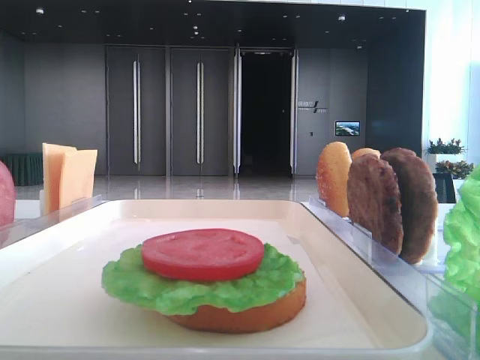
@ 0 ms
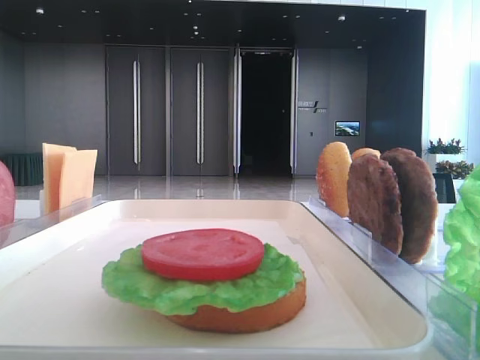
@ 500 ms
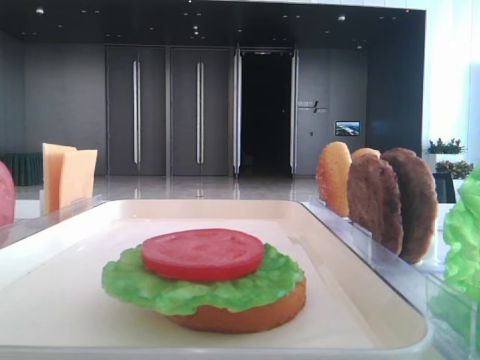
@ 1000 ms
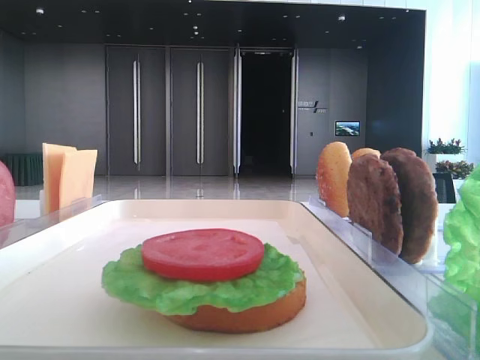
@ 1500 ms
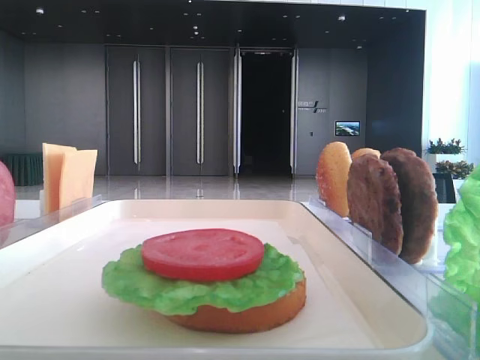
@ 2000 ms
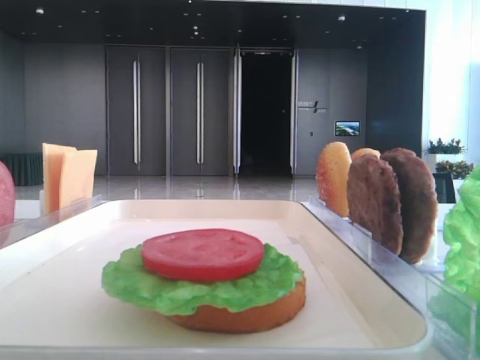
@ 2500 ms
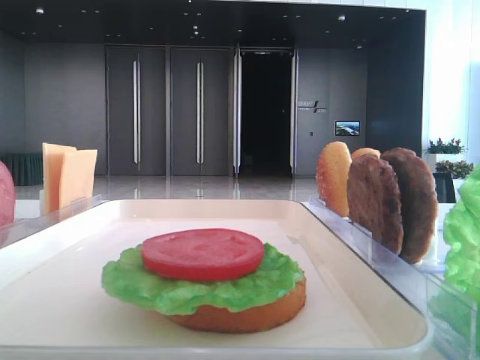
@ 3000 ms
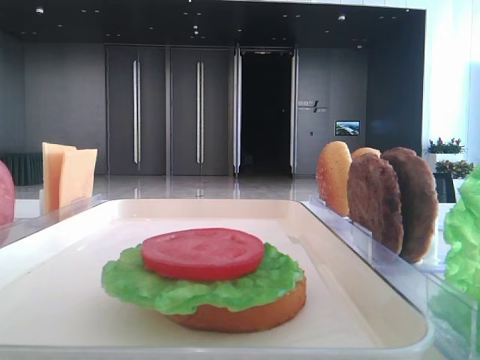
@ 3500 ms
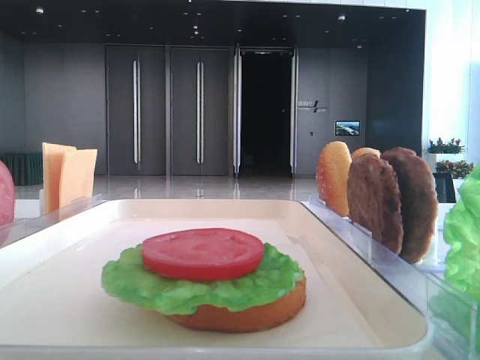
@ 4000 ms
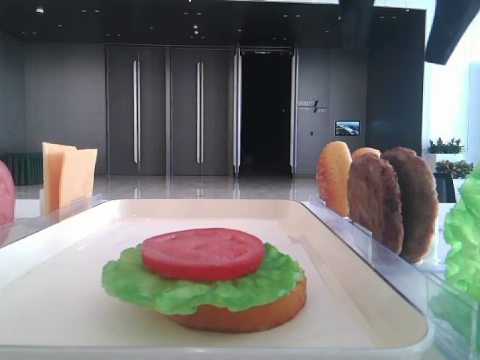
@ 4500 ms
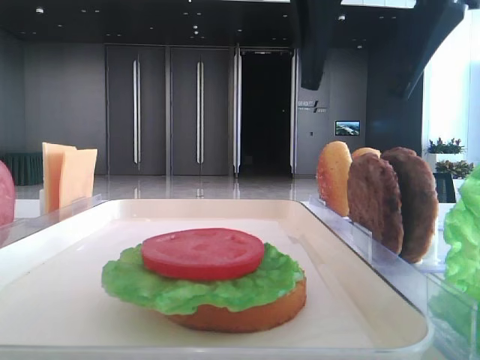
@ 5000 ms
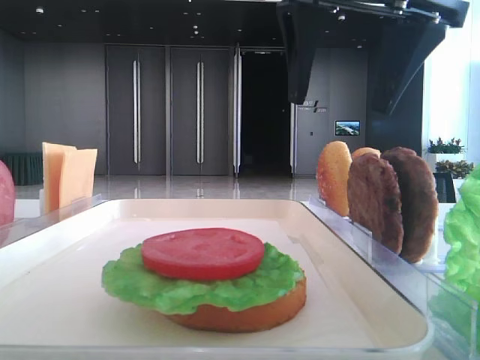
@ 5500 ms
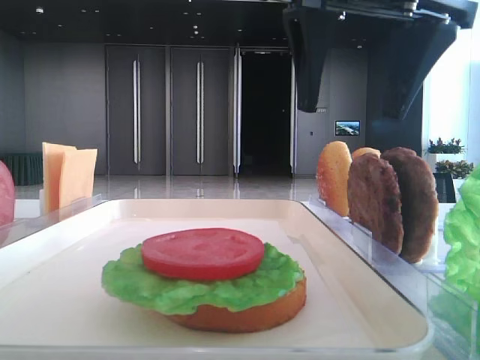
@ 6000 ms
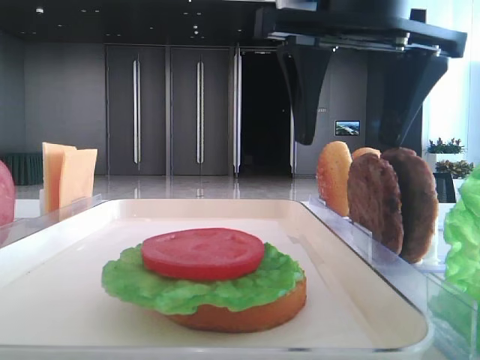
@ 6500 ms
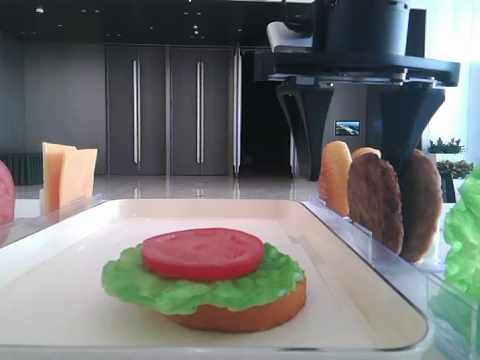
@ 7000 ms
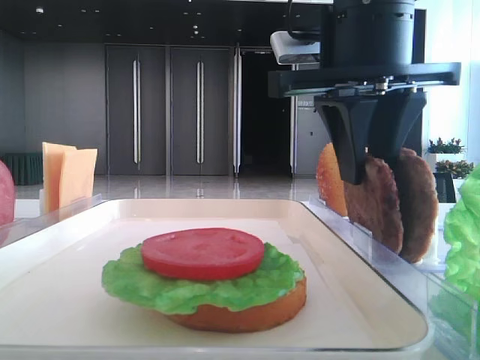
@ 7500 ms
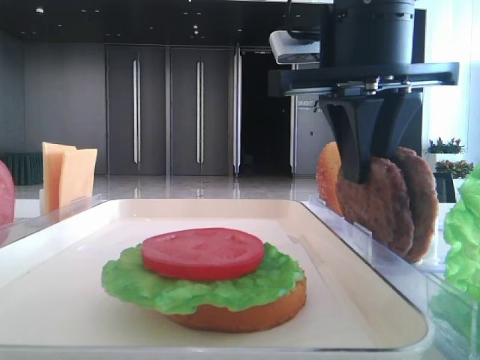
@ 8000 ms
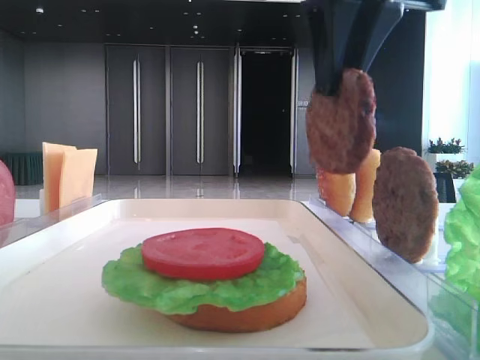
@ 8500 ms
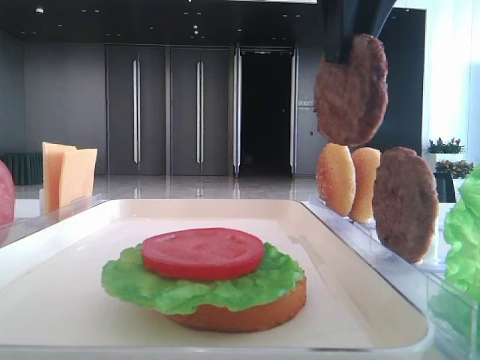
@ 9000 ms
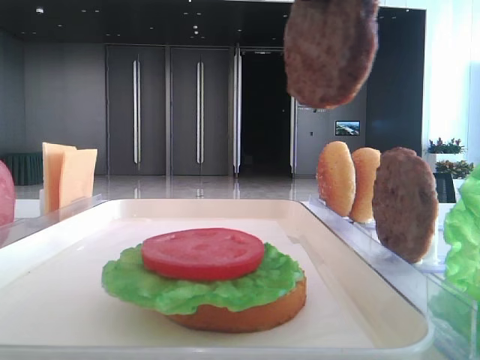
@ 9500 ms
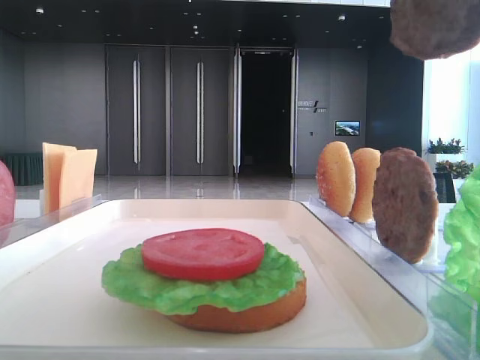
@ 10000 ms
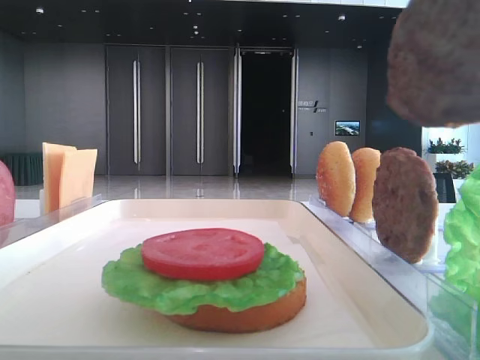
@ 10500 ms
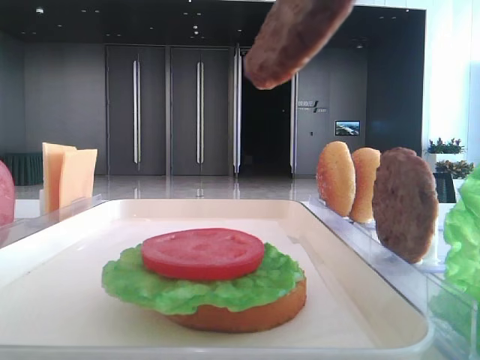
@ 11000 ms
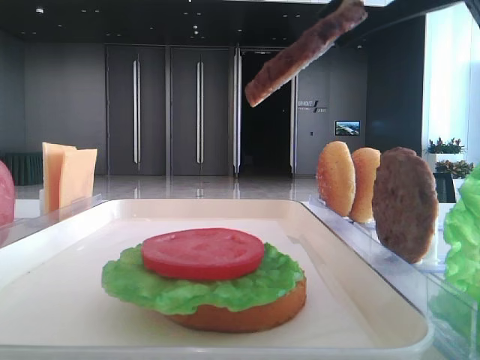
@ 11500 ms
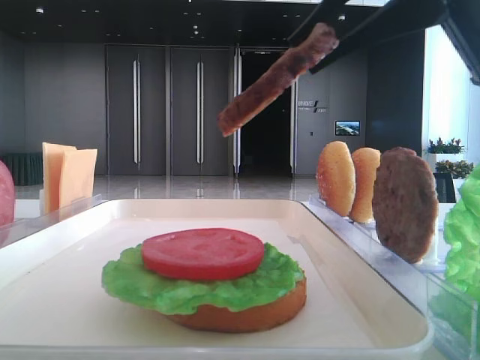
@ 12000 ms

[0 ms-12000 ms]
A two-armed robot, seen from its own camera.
Step, 0 ms to 7500 ms: Grab the patty with the right hand.
4000 ms to 6000 ms: The right gripper heads to the left and downward, covering approximately 15 cm.
6000 ms to 8000 ms: The right gripper moves downward, roughly 5 cm, and closes up.
8000 ms to 10000 ms: The right gripper shifts some 20 cm upward and backward.
10000 ms to 12000 ms: The right gripper goes roughly 10 cm downward.

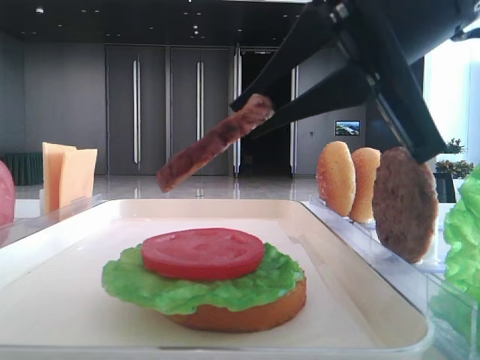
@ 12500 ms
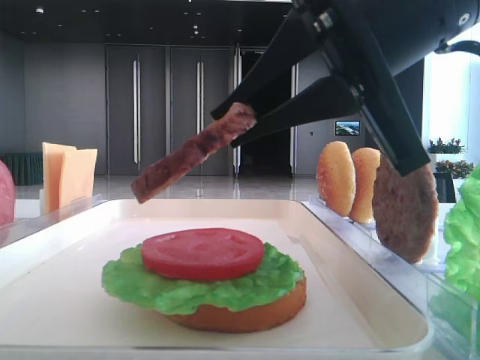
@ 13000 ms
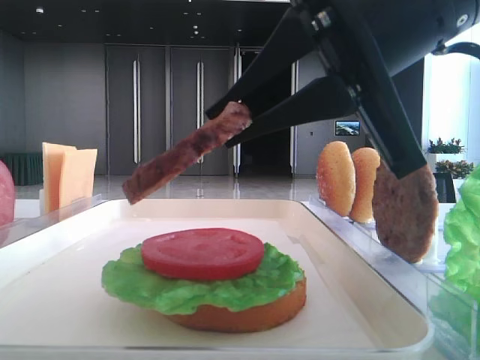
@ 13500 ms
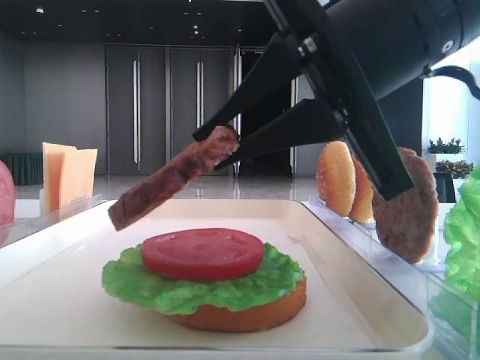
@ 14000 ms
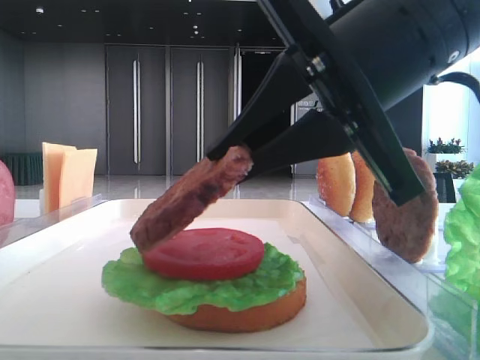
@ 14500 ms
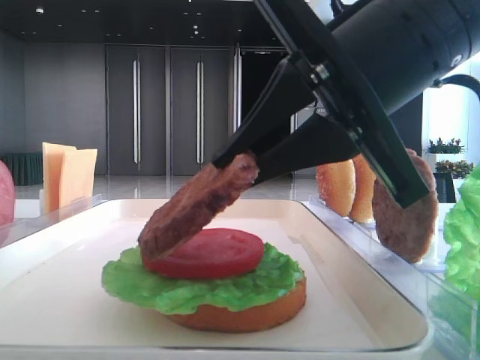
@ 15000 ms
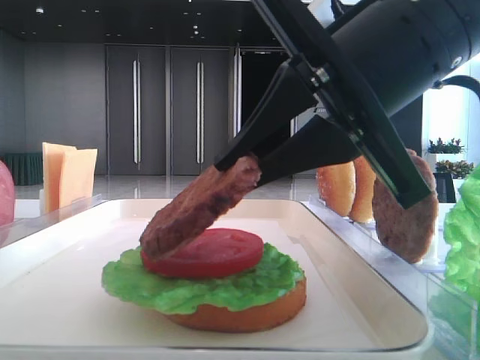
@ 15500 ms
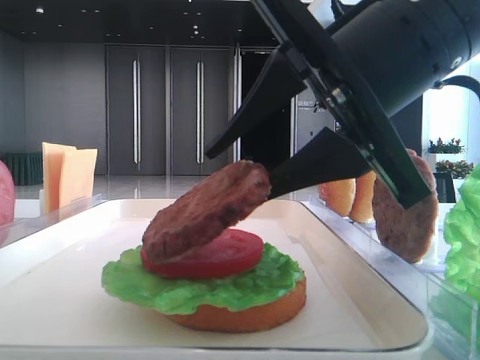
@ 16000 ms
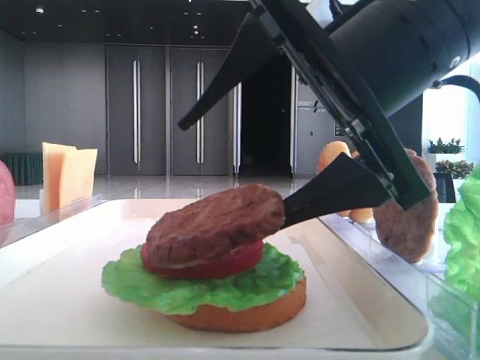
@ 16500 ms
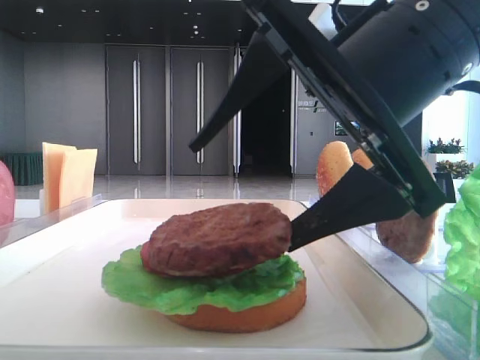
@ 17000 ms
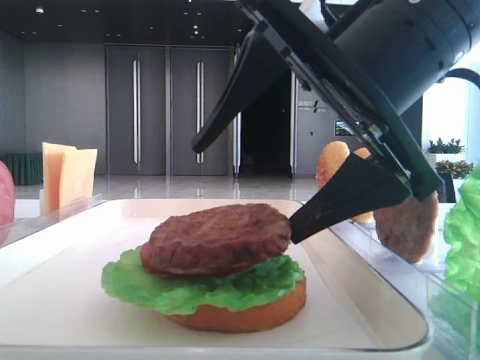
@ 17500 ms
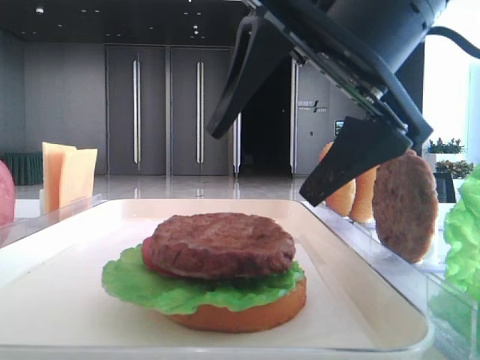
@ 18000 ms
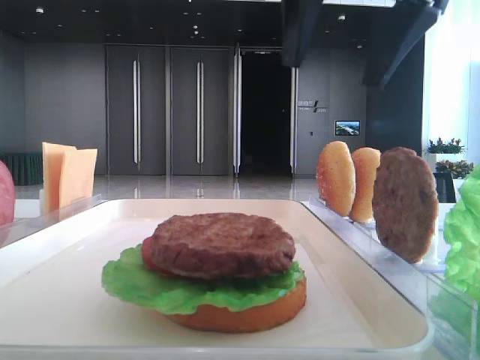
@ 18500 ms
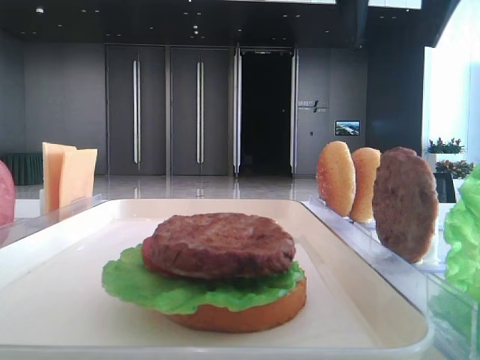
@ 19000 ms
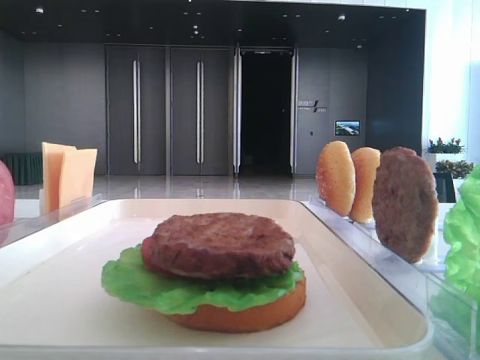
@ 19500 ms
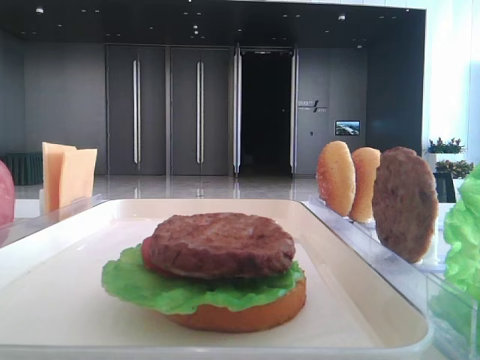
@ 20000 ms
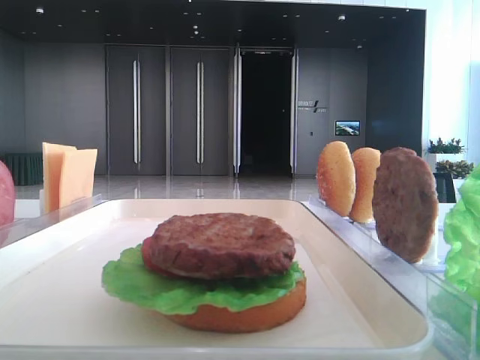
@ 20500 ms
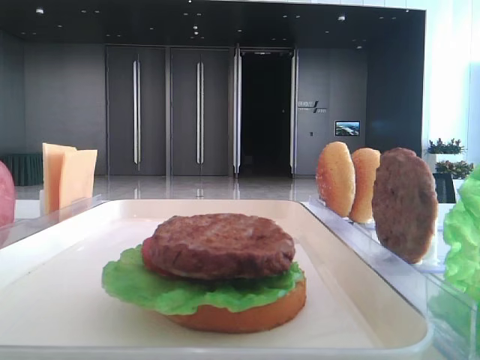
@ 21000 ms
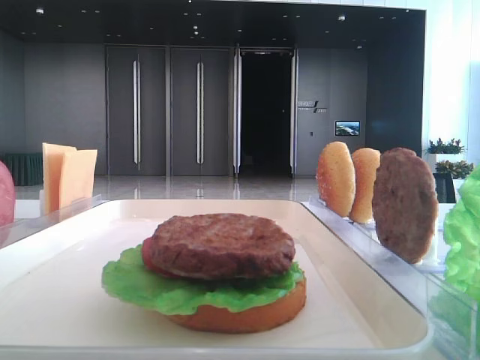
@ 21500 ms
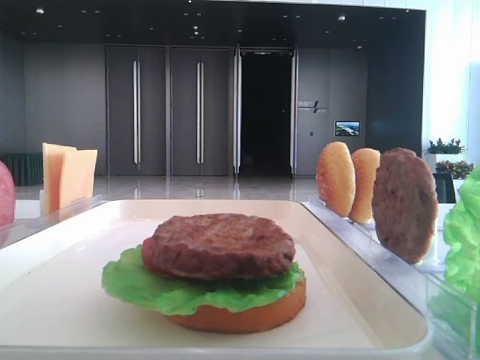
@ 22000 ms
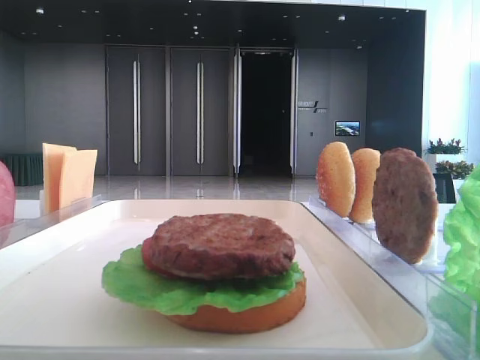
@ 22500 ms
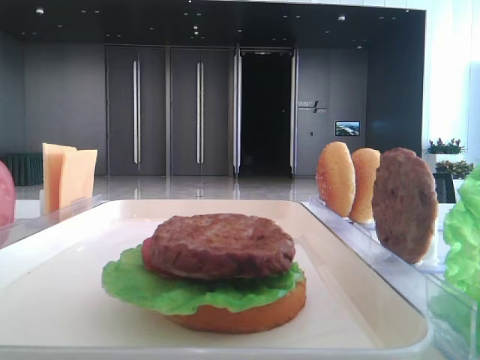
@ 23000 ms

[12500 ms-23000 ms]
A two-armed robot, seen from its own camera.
Step, 12500 ms to 17500 ms: Place the patty on the tomato slice with the right hand.
12500 ms to 14500 ms: There are only small adjustments of the grippers.
14500 ms to 16500 ms: The right gripper opens up.
16500 ms to 19000 ms: The right gripper goes about 20 cm upward and forward.
19000 ms to 21000 ms: The right gripper travels backward, to the right and upward by roughly 30 cm.

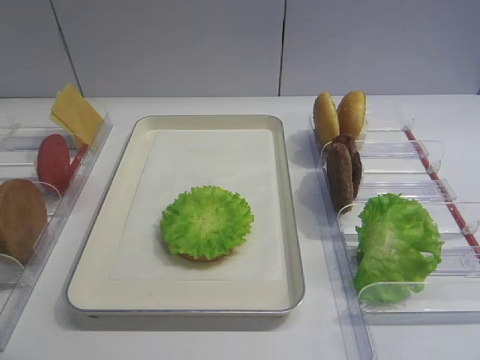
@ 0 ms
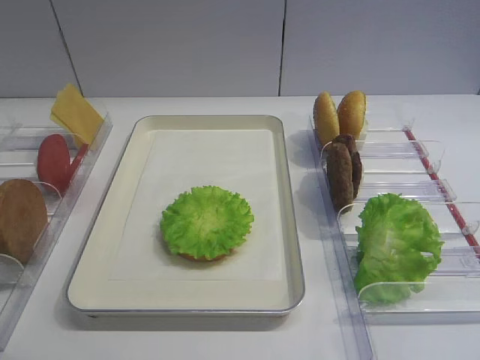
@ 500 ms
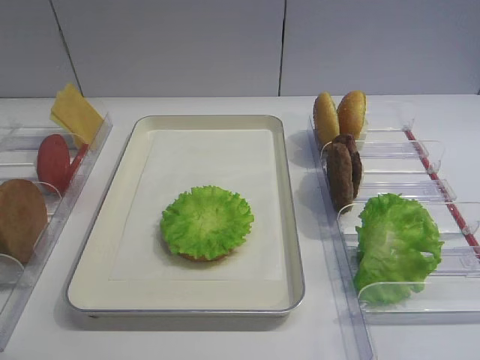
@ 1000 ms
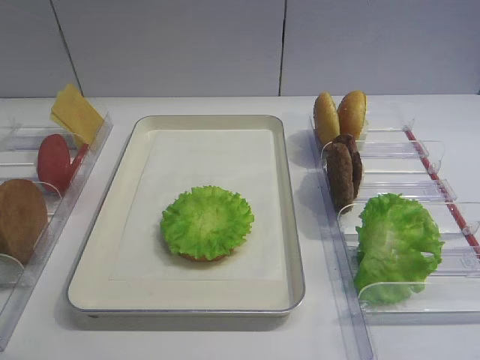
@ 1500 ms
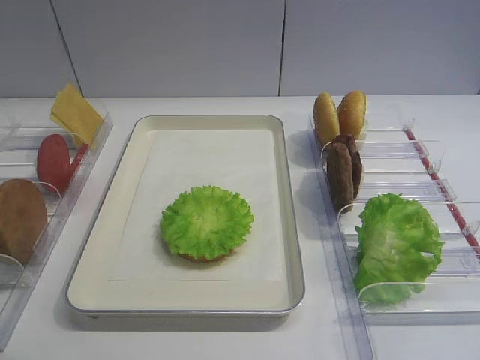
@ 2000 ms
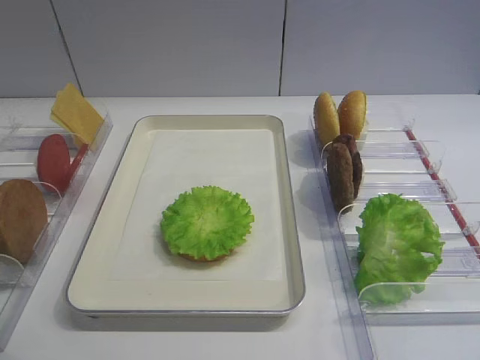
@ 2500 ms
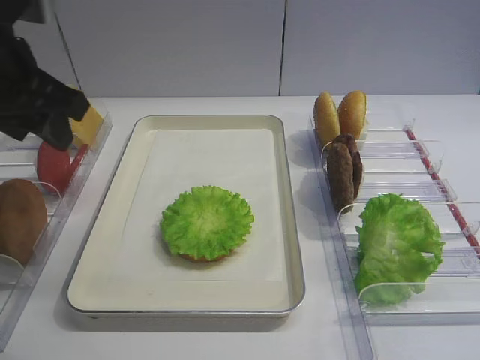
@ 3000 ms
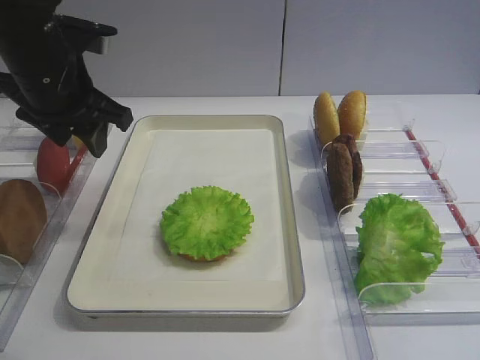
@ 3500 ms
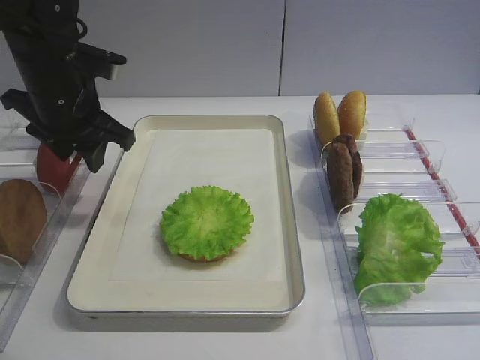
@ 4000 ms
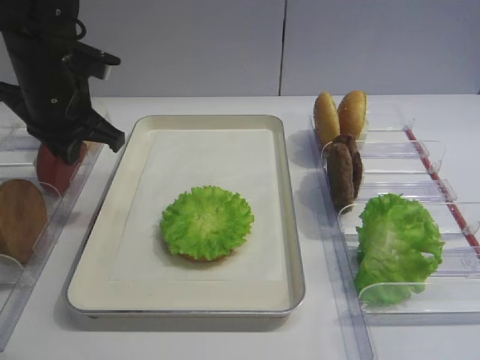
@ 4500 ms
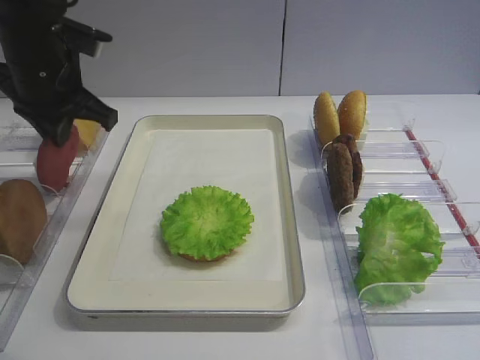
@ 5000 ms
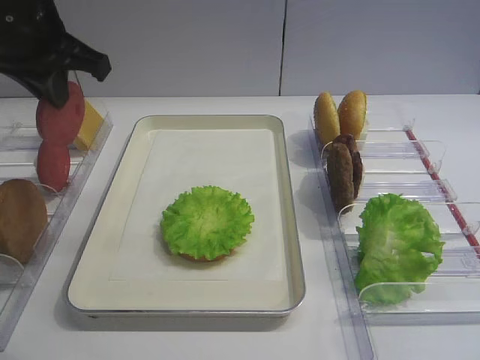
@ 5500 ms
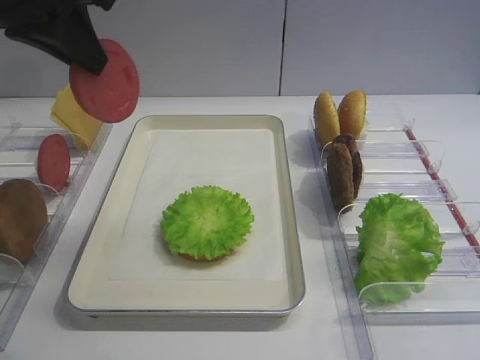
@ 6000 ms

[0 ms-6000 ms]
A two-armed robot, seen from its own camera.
Step, 0 ms to 5000 ms: Pick up the tomato slice with the left gripper.
2000 ms to 4000 ms: The left gripper goes some 30 cm forward.
4000 ms to 6000 ms: The left gripper goes roughly 20 cm upward and backward, and closes up.
